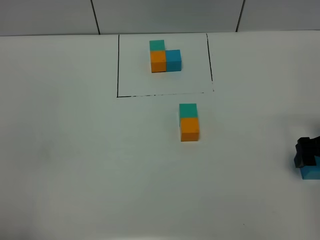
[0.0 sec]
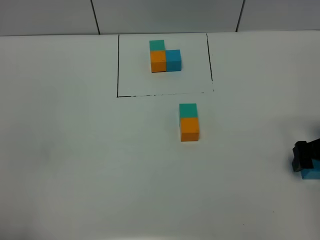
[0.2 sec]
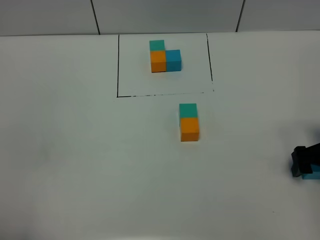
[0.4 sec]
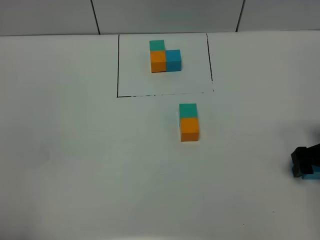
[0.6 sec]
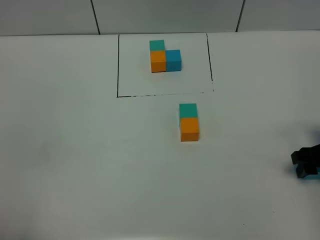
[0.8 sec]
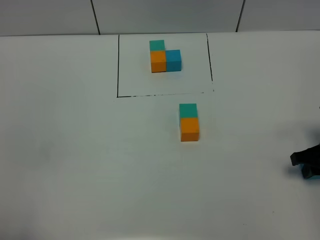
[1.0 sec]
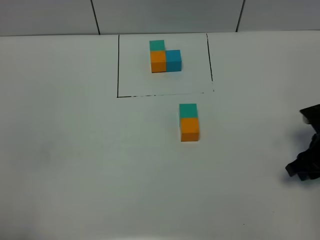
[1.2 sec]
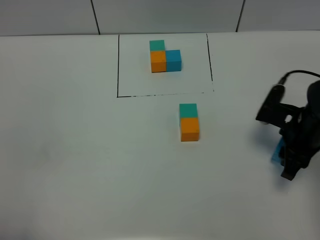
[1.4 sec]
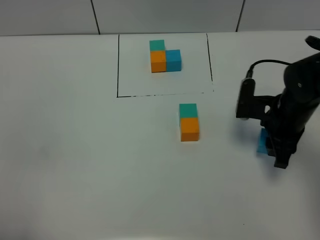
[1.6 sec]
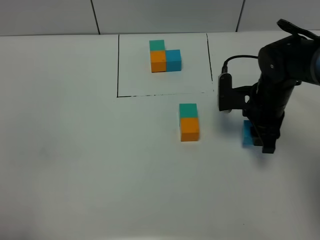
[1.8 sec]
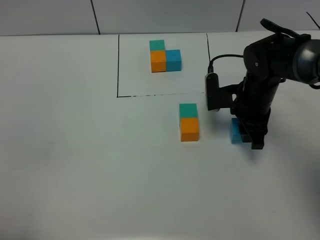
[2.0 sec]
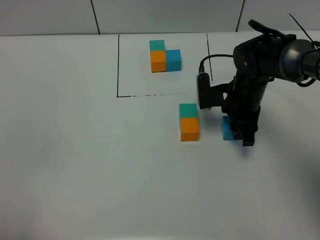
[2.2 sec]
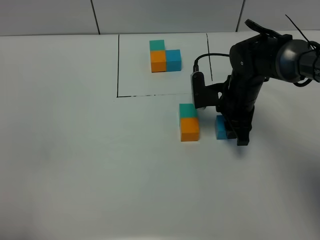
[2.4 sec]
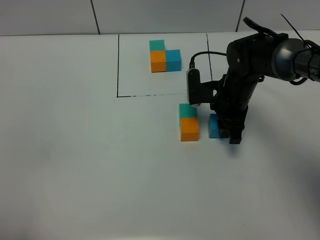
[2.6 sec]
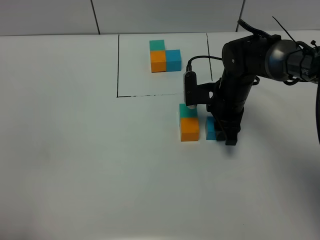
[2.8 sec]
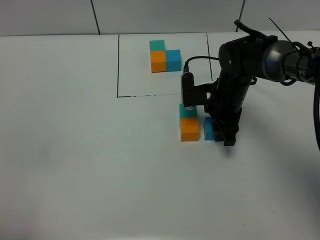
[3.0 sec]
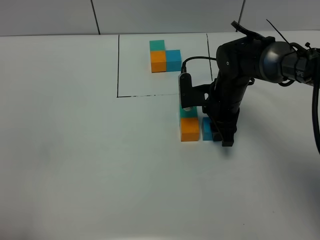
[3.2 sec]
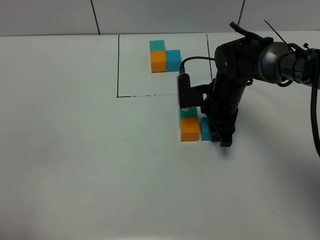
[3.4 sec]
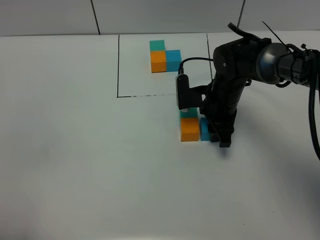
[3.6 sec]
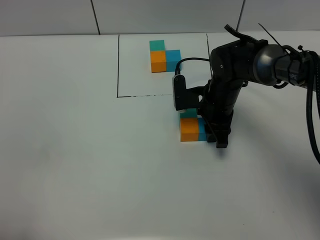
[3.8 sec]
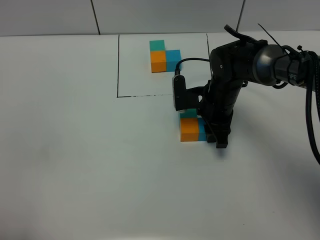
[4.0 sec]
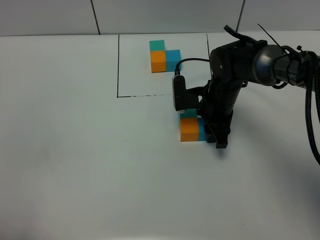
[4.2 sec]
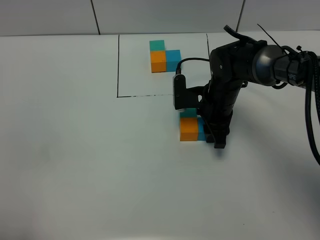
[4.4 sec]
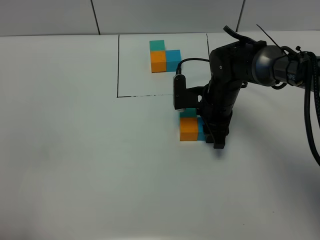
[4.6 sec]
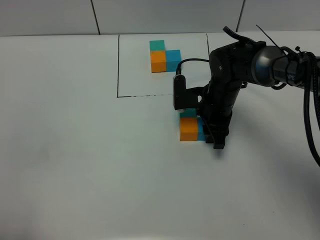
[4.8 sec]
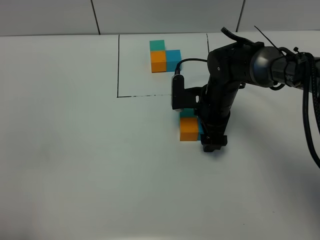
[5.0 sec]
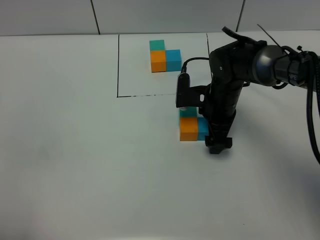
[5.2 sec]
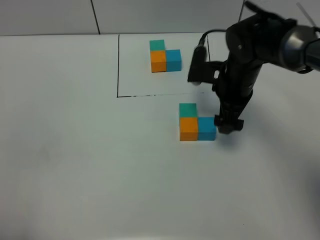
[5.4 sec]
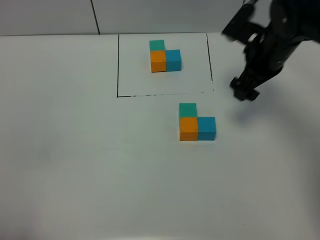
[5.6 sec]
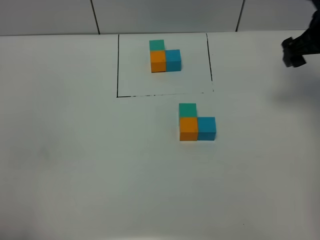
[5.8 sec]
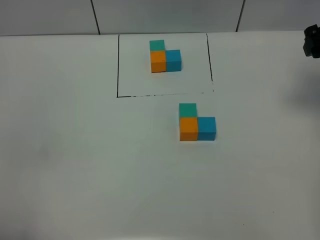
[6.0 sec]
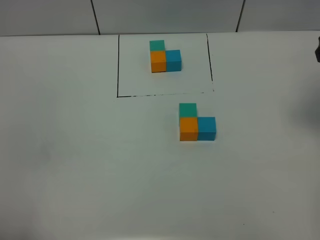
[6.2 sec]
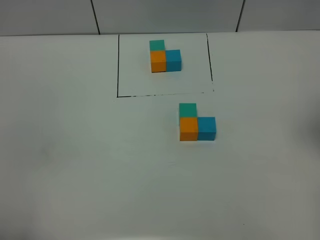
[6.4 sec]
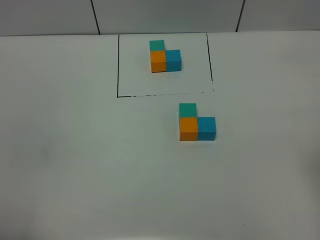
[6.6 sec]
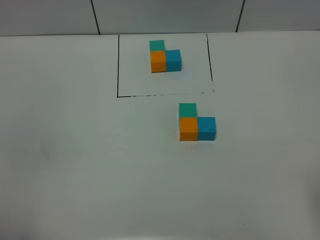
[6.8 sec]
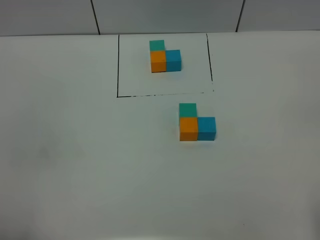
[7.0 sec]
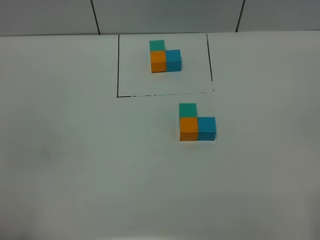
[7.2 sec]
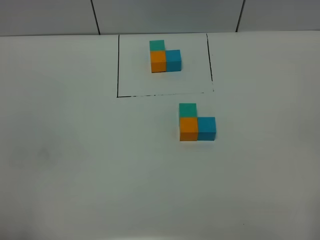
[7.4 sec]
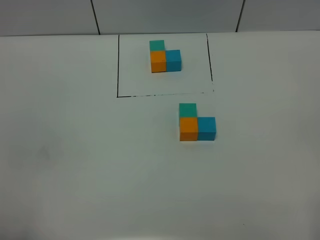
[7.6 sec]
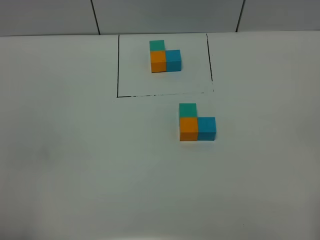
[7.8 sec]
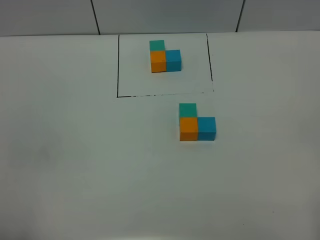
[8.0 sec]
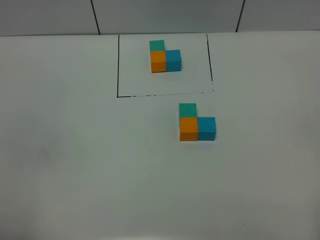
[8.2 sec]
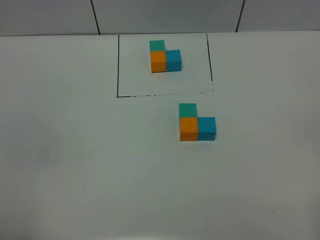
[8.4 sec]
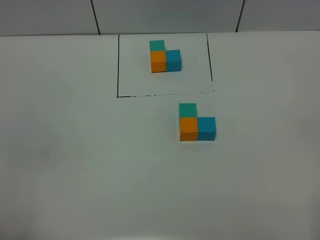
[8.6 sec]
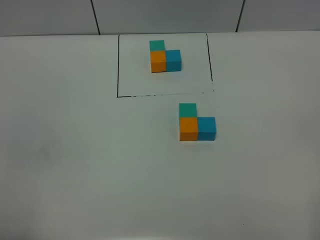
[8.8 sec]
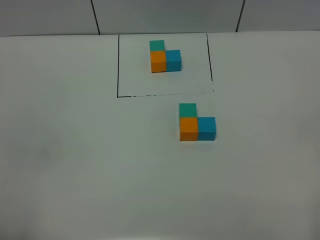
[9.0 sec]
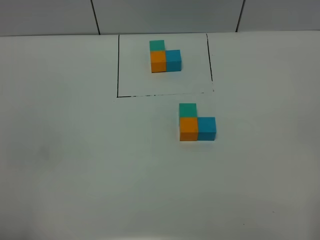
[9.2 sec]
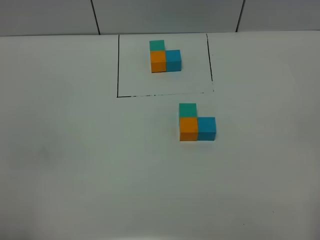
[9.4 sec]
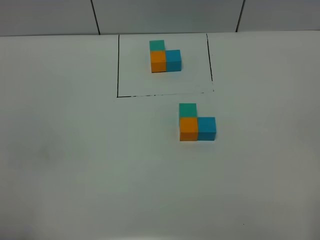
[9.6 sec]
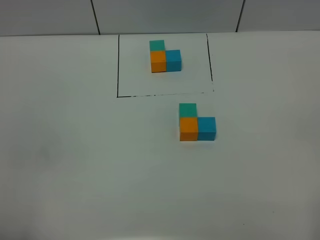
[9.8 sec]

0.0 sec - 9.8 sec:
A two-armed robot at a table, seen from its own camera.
Task of the whole recording: According to the building block template in front, assemble the scattered blocks together.
Step, 0.0 sec - 5.0 sec: Put the blue build block on the right of the orange build block.
0.0 sec - 1.4 sec: The right gripper moves to the left, roughly 10 cm, and closes.
1.4 sec - 2.8 sec: The right gripper shifts about 15 cm to the left and forward.
2.8 sec - 4.2 sec: The grippers stay close to where they were, moving slightly.
4.2 sec - 5.6 sec: The right gripper moves upward and to the right, about 15 cm, and opens its fingers.
5.6 sec - 7.0 sec: The right gripper moves backward, roughly 35 cm.
8.4 sec - 9.8 sec: Both grippers stay put.

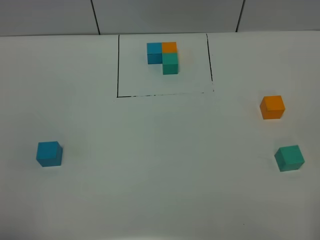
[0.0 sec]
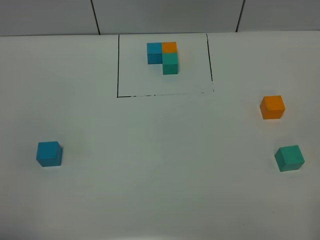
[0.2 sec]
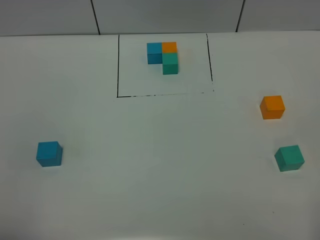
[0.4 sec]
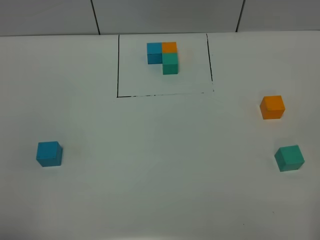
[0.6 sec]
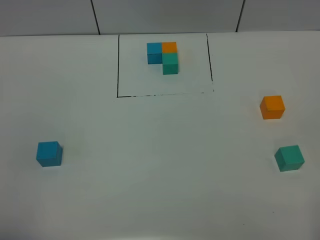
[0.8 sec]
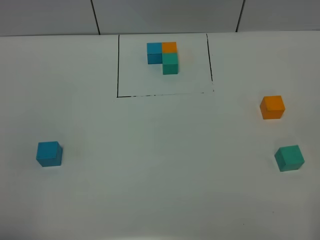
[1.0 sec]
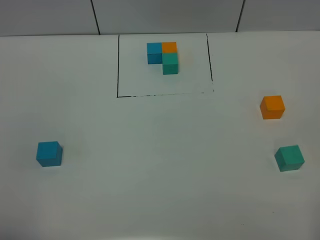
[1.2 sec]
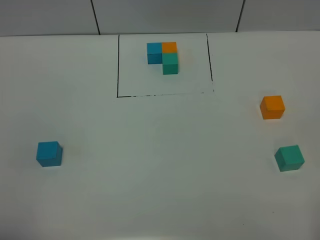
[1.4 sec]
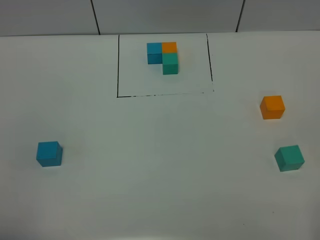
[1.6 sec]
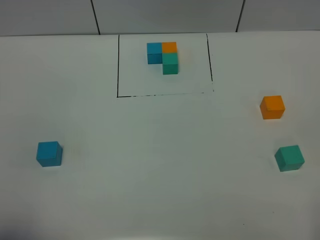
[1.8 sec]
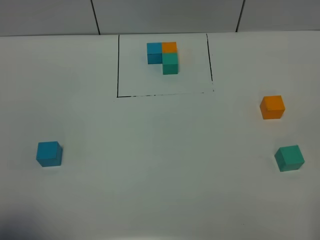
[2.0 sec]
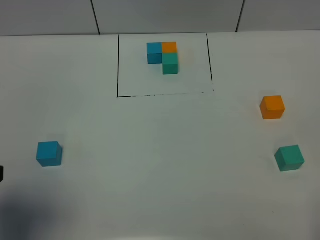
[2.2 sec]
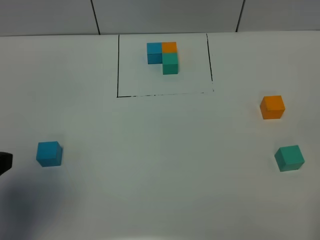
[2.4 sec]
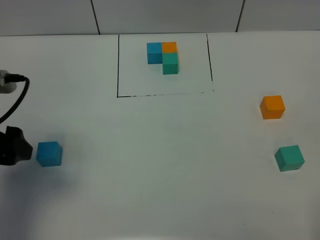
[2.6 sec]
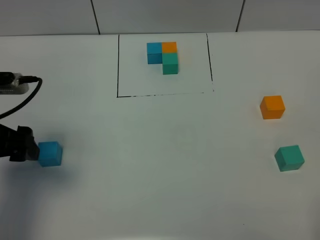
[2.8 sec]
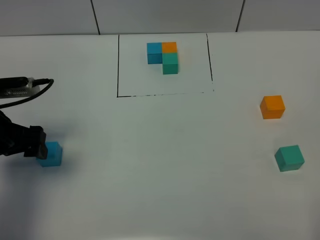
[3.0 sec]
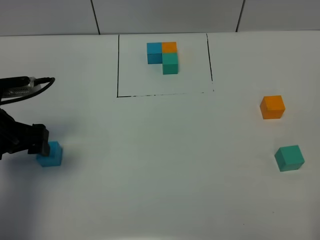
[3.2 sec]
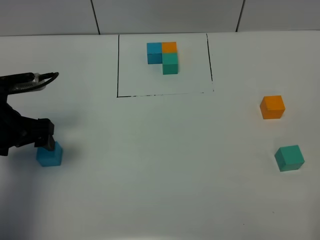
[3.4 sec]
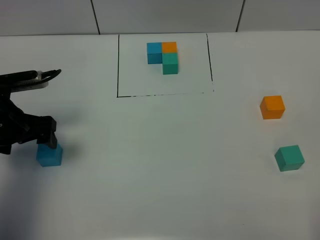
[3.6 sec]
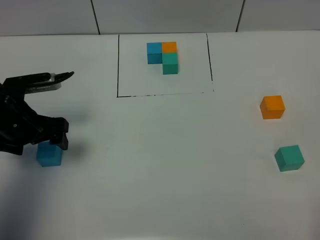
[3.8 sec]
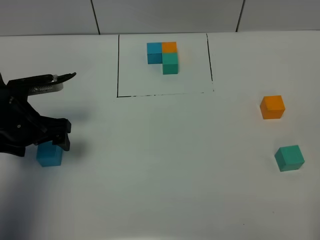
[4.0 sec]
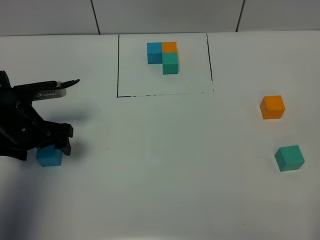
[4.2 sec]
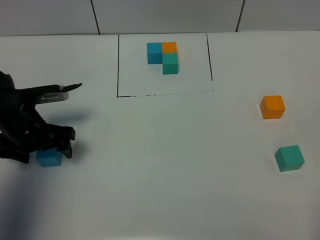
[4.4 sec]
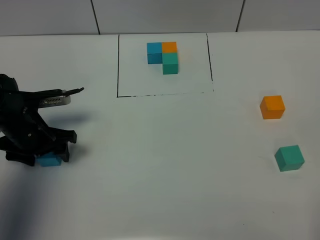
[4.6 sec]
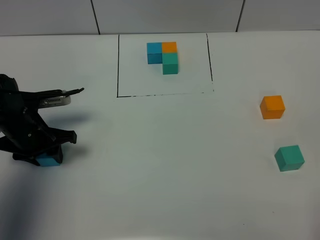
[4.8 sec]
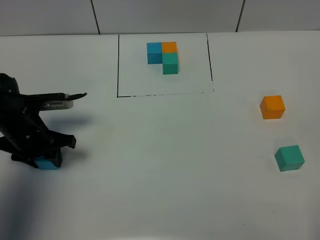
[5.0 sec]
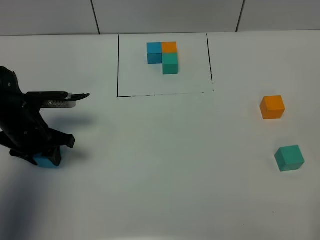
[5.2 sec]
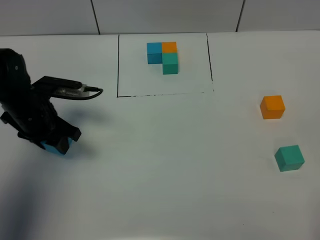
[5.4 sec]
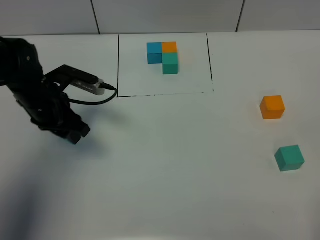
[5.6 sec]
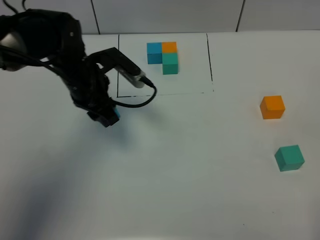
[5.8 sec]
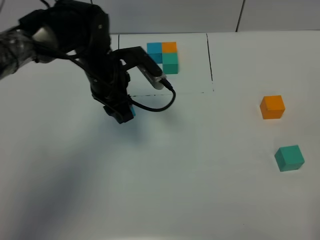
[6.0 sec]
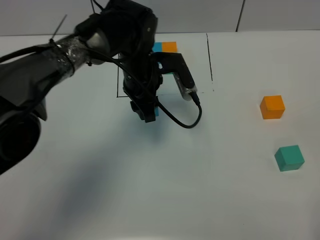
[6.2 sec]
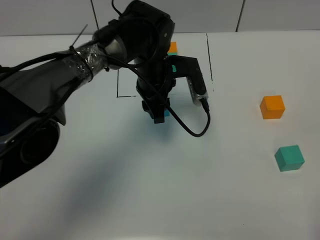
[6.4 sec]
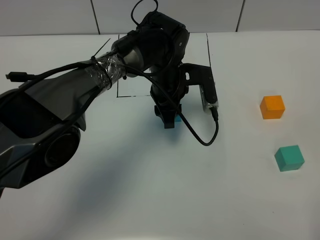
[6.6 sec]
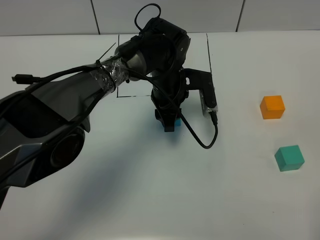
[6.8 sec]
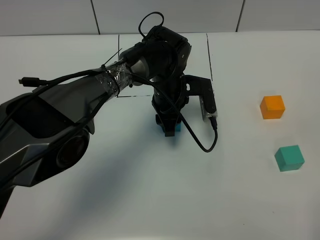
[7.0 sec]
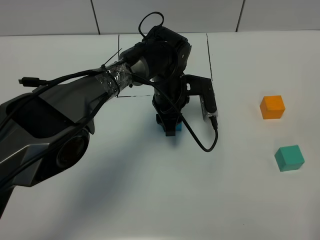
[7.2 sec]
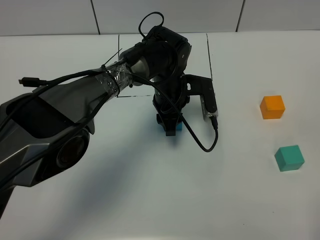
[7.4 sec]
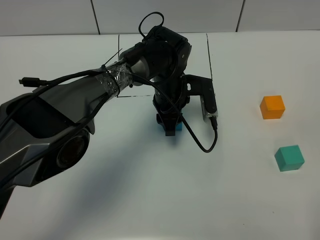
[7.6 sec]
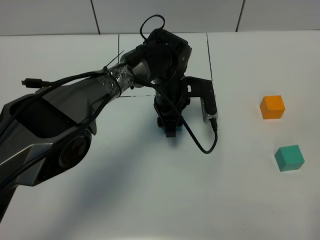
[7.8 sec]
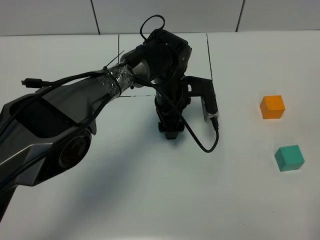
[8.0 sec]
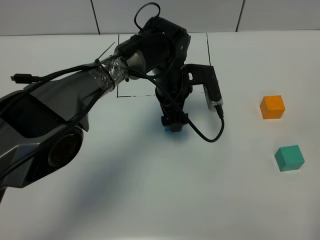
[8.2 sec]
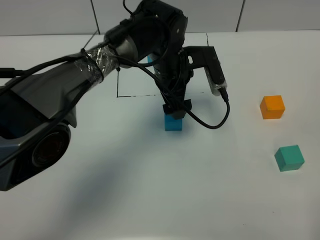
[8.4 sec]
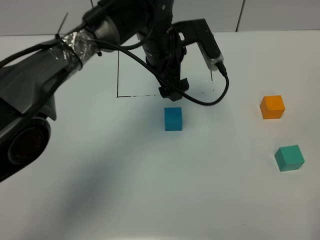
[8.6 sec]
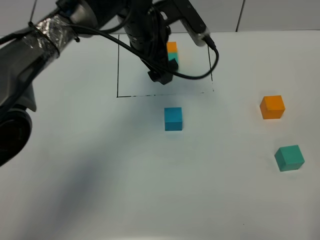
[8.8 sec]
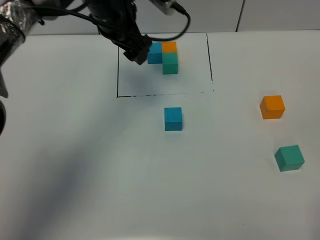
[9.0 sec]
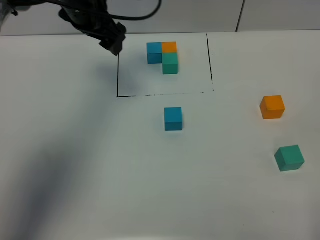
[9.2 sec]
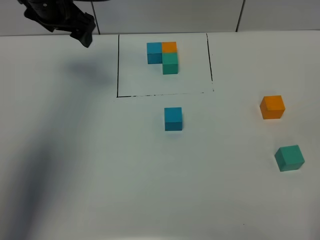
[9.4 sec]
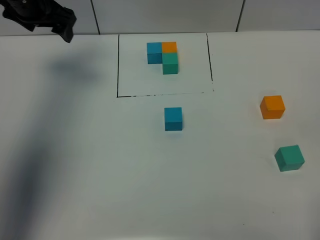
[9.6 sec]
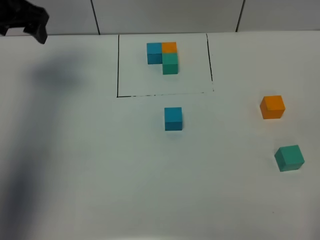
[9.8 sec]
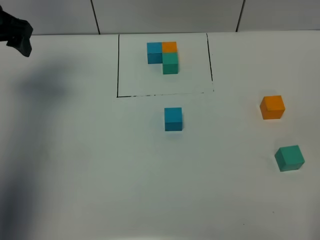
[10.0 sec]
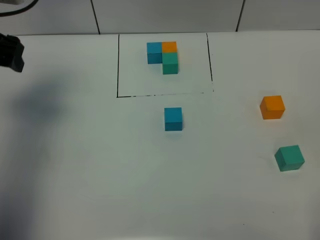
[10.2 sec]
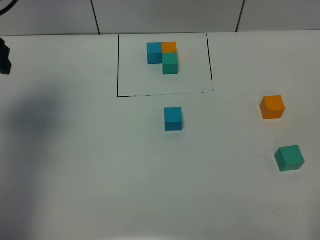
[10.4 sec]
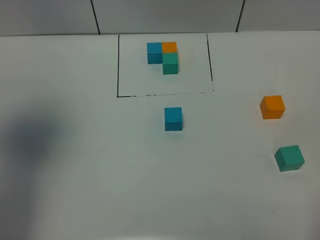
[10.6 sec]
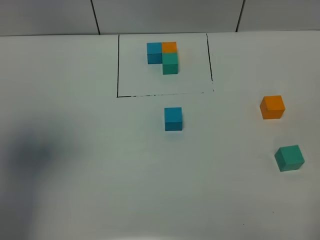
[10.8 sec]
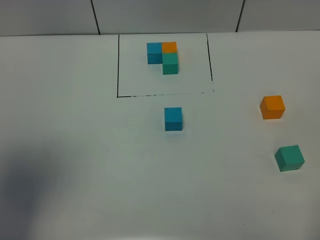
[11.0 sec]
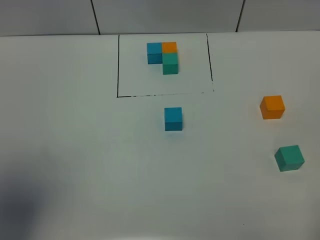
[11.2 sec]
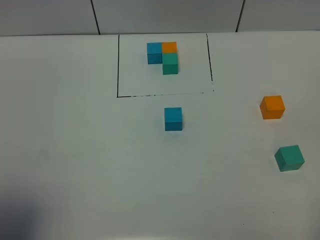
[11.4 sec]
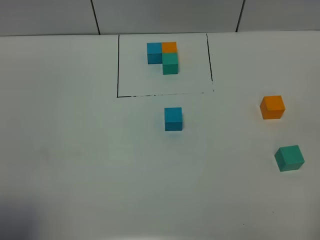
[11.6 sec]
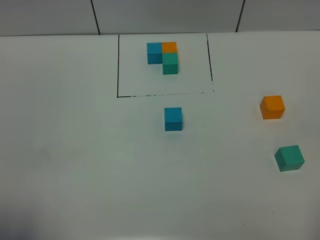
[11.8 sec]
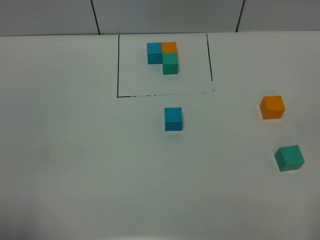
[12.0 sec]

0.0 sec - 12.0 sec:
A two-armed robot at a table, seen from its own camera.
Task of the whole recording: According to the building block template in front, assemble the scattered blocks together.
Step, 0.0 sec - 7.8 sec: Put the blue build block in the center of the table.
0.0 sec - 1.6 sec: Both grippers stay put.
1.6 sec - 3.0 sec: The left gripper is displaced forward by about 25 cm.
3.0 sec - 4.4 sec: The left gripper travels downward and forward by some 10 cm.
4.4 sec - 6.0 sec: The left gripper goes about 20 cm to the right and forward, and closes.
6.0 sec - 7.6 sec: The left gripper travels to the right and downward by roughly 15 cm.
7.6 sec - 9.0 sec: The left gripper heads upward and to the left, covering about 20 cm, and opens.
9.0 sec - 10.4 sec: The left gripper moves to the left and backward, about 25 cm.
10.4 sec - 12.0 sec: The left gripper is displaced backward by roughly 30 cm.
